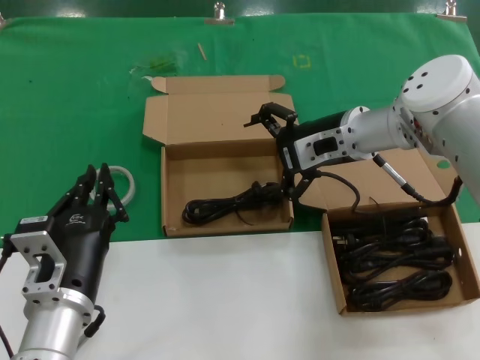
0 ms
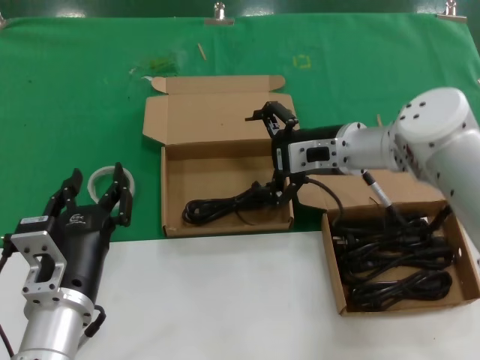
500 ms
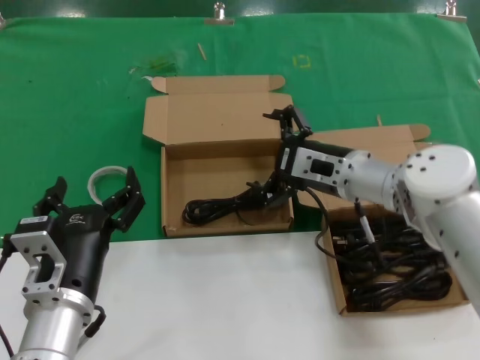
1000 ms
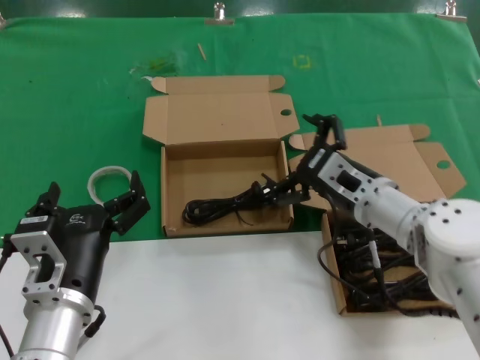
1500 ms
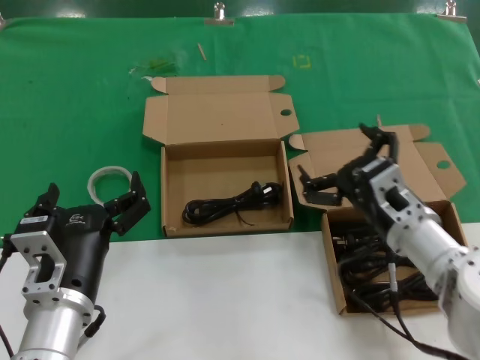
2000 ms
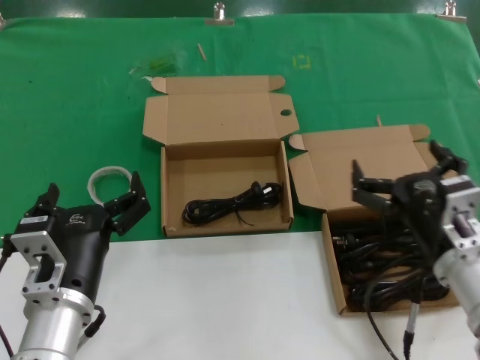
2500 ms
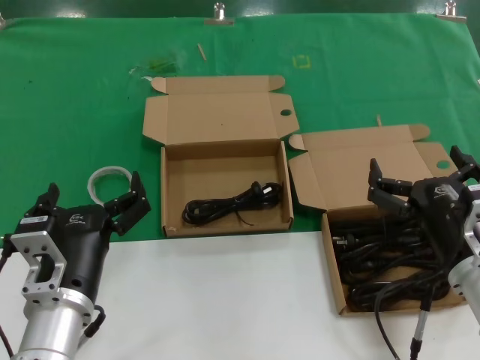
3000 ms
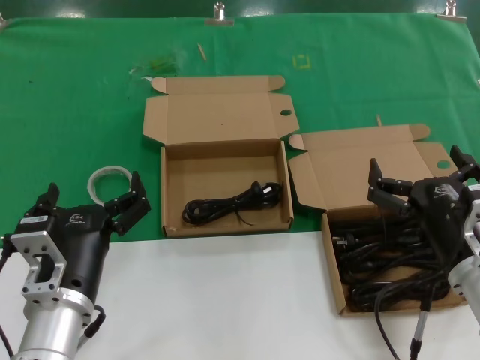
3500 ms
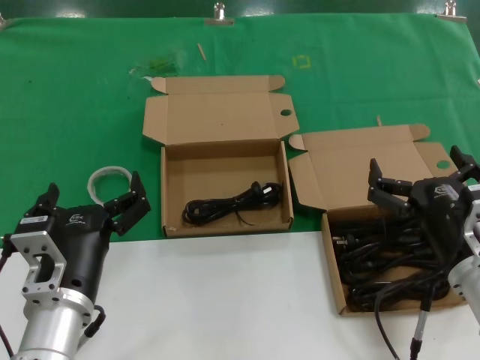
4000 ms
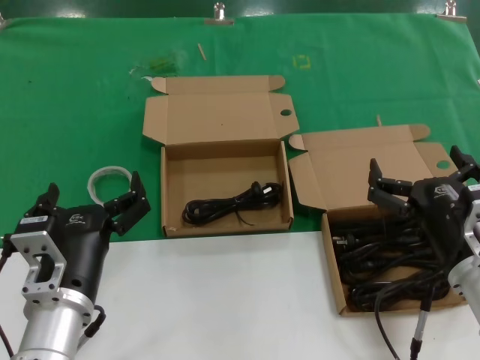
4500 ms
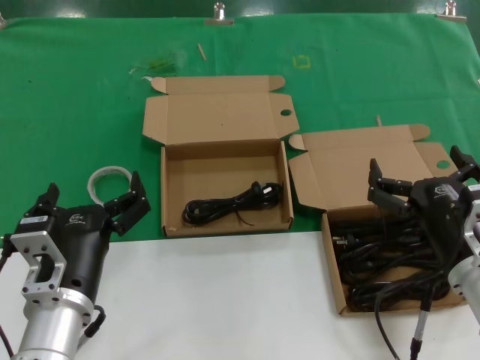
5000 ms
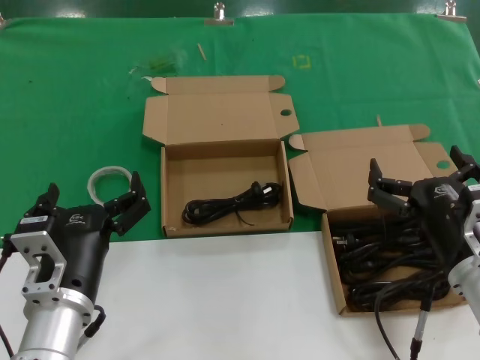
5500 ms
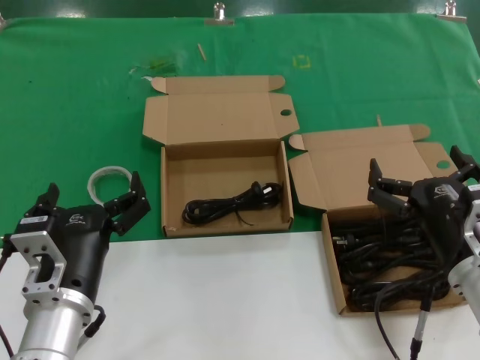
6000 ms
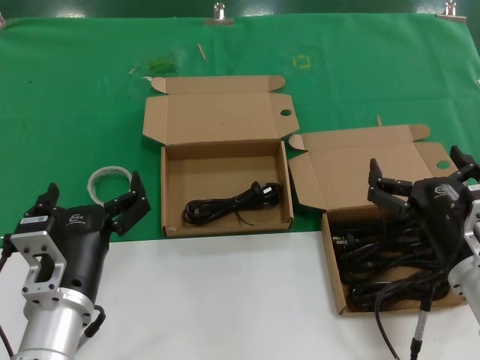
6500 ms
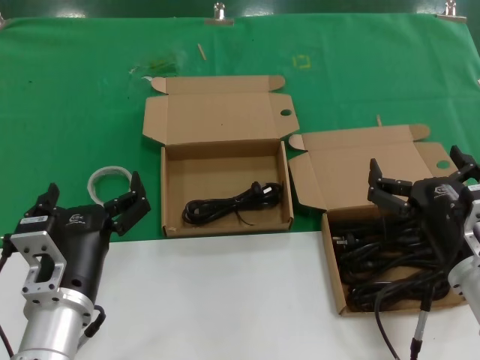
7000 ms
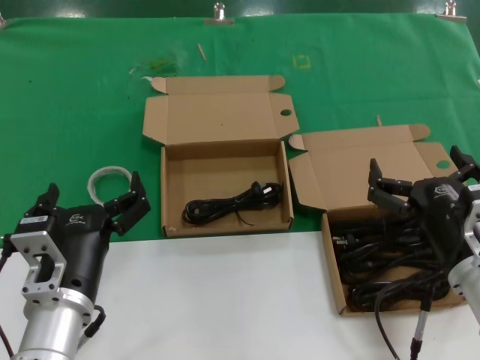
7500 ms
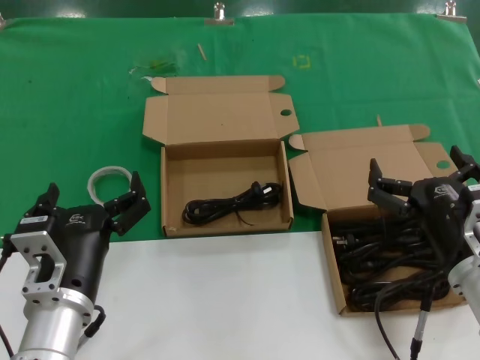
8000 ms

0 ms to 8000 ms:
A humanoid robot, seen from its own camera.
Task of the whole recording: take the parts from the box containing them and put them into an empty box.
0 ms to 2000 ms: The right hand travels backward and downward by about 20 cm.
2000 ms to 4000 ms: The right hand travels backward by approximately 10 cm.
4000 ms to 8000 ms: Neither hand changes place.
